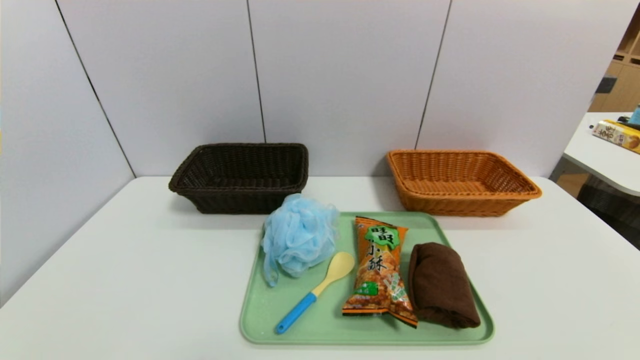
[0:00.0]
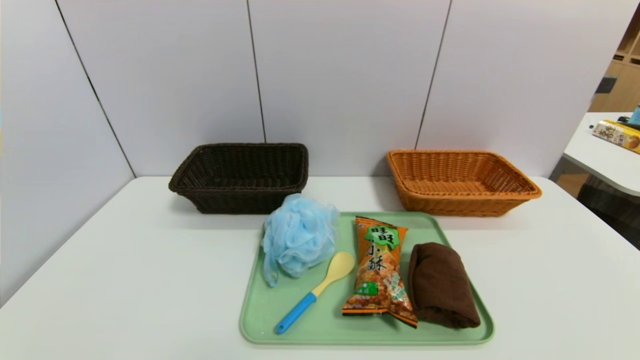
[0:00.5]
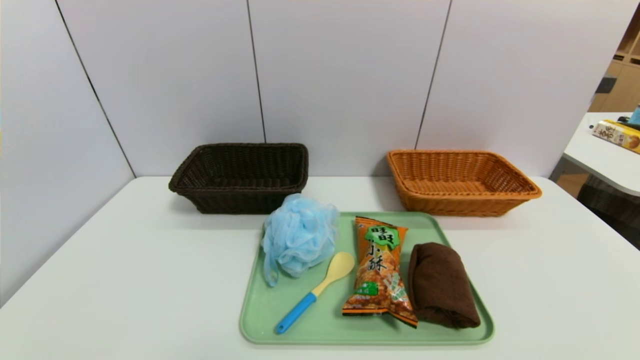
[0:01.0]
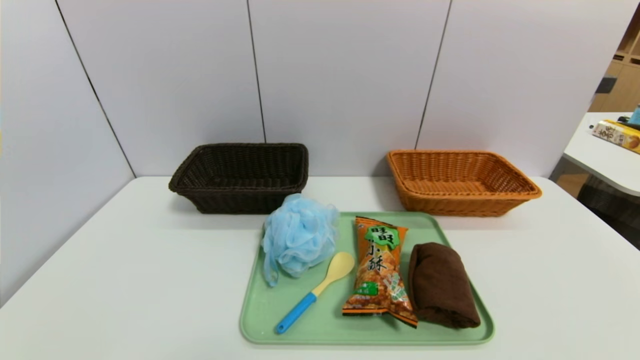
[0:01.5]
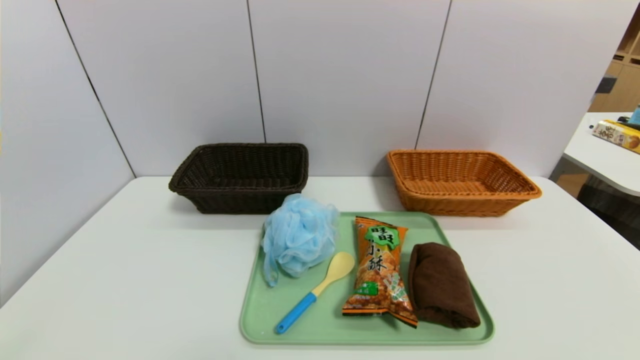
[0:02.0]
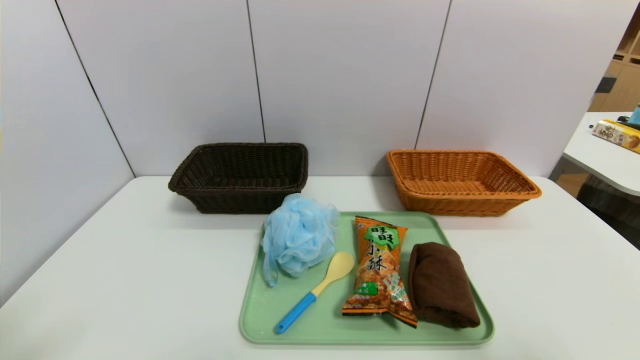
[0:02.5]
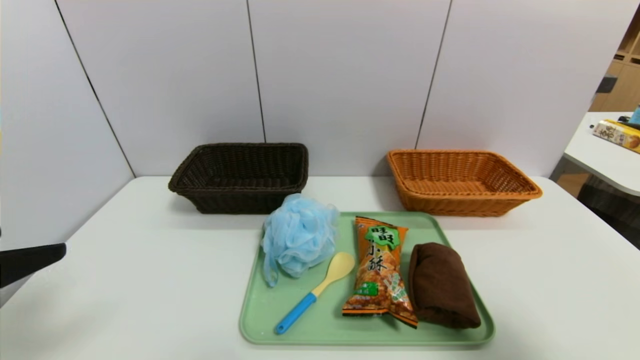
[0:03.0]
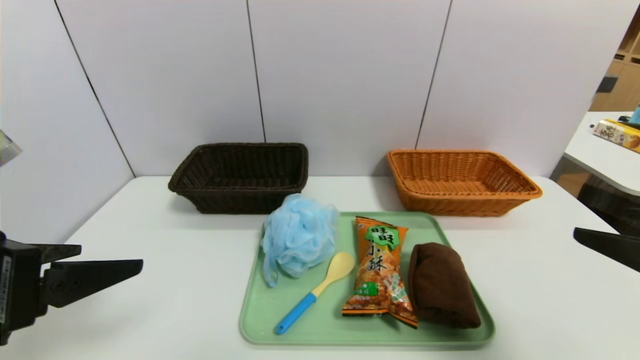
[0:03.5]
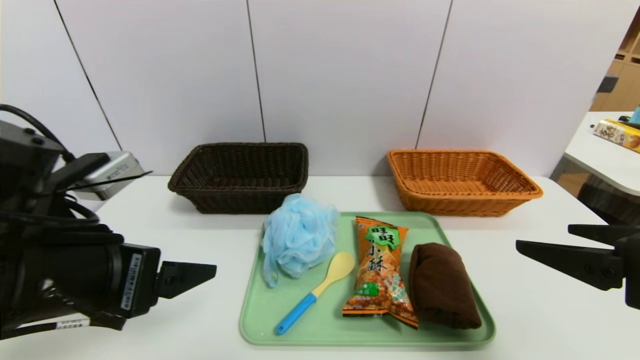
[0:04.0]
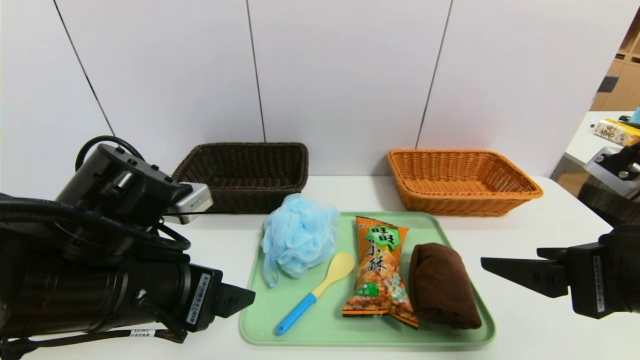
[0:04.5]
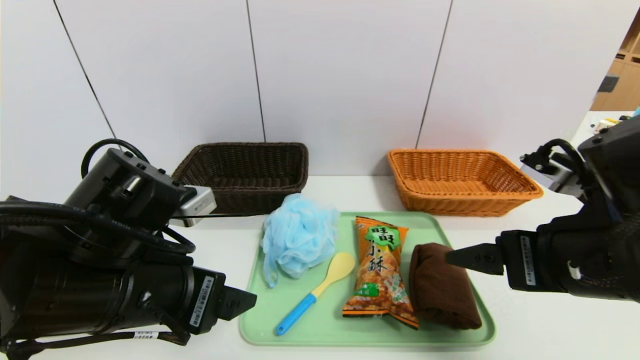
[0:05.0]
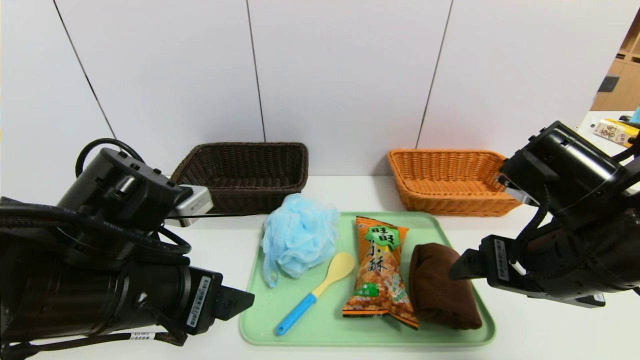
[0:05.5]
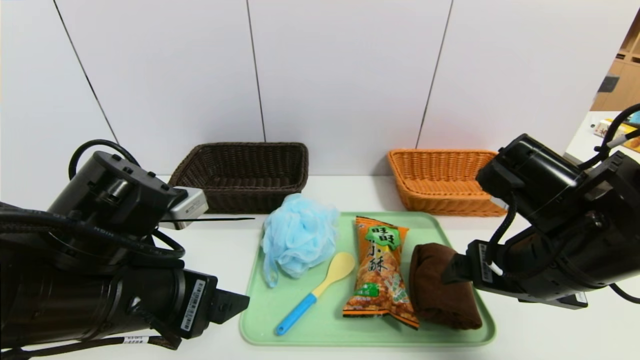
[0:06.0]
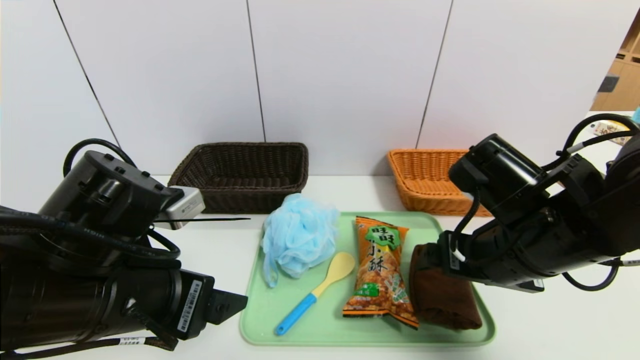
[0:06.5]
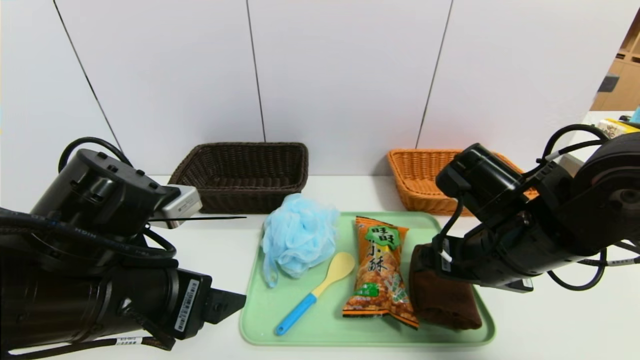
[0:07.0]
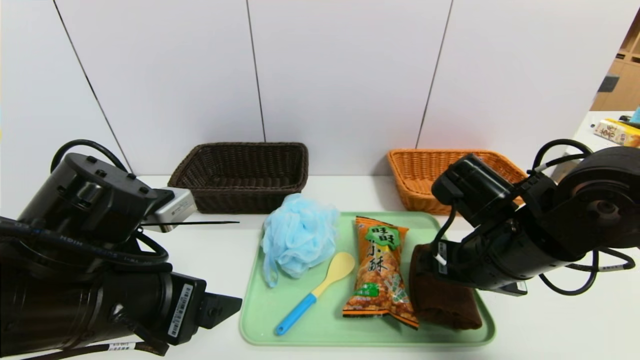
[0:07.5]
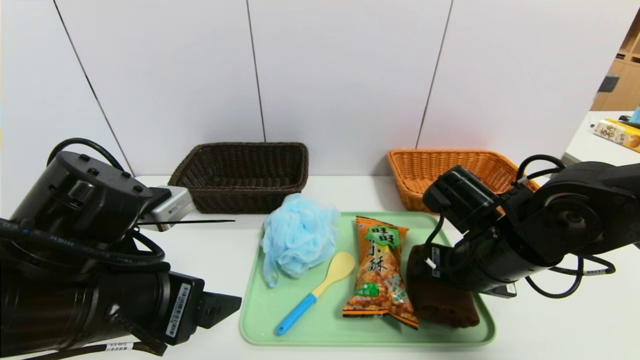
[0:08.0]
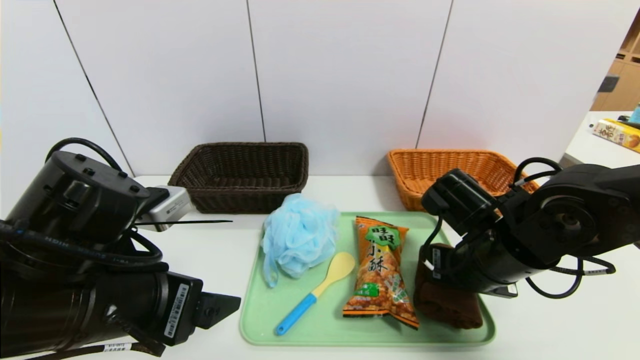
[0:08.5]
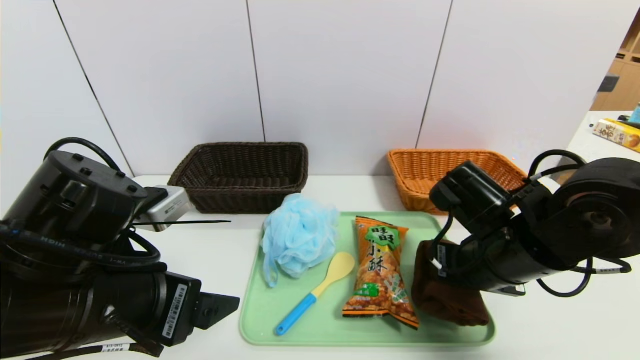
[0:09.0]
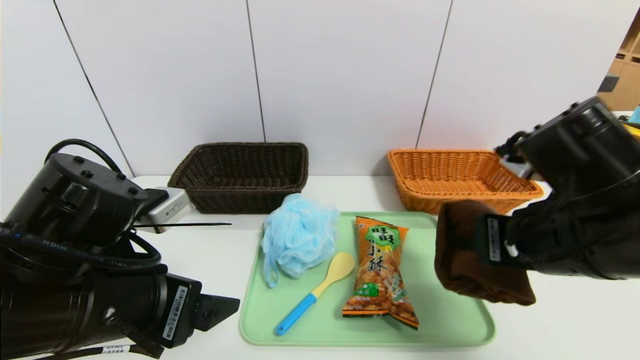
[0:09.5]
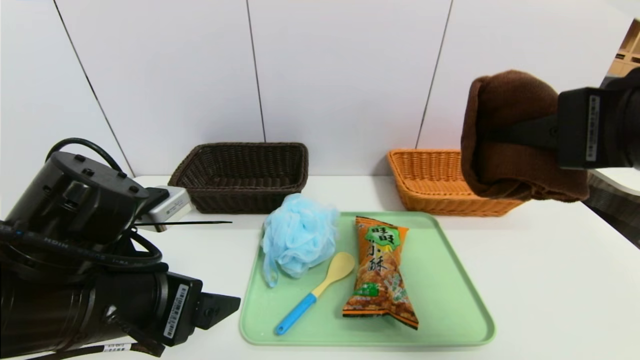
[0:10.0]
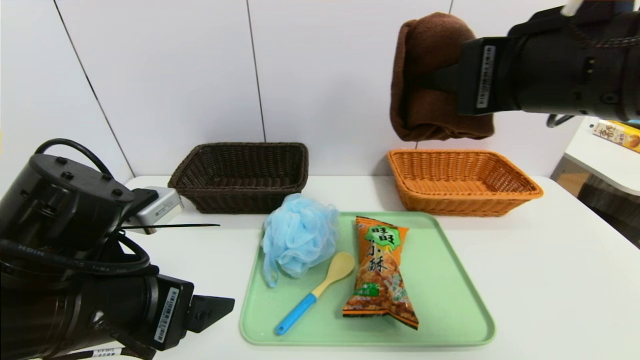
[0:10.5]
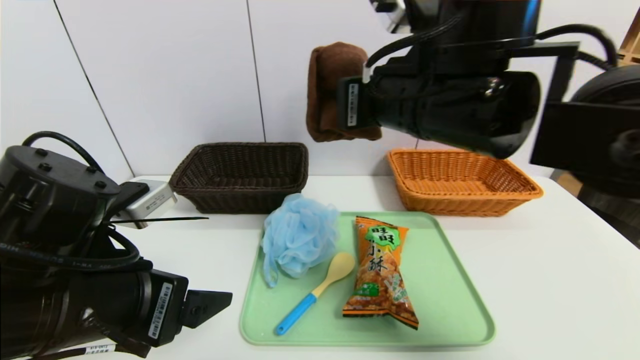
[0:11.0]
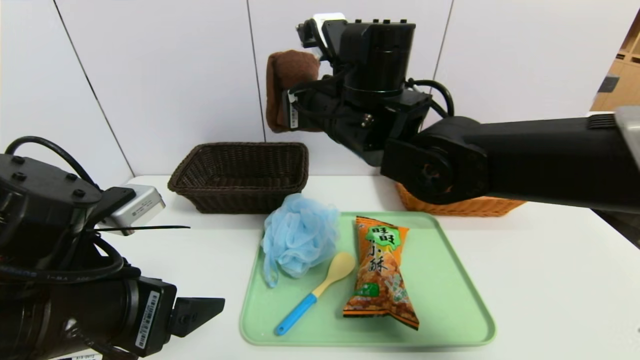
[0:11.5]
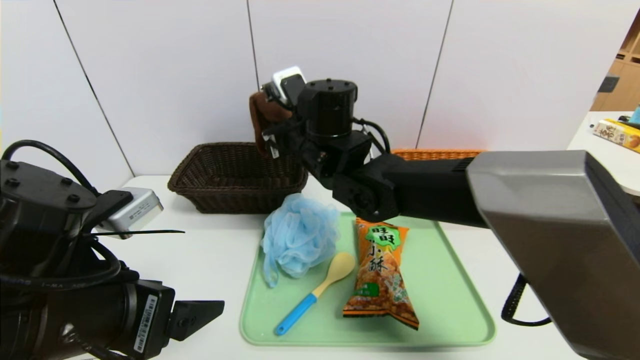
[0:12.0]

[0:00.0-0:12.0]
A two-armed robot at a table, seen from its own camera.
Task of the whole recording: place the food in the right basket with the right gripper, and place the non food items in the left basket with the left gripper.
0:02.0 to 0:04.0: The left gripper heads forward and to the right, covering roughly 20 cm. Meanwhile the right gripper goes some 15 cm forward.
0:04.0 to 0:06.0: The right gripper heads forward and to the left, covering about 10 cm.
0:06.0 to 0:08.0: The right gripper is displaced downward and forward by roughly 10 cm.
0:08.0 to 0:10.0: The right gripper goes some 20 cm upward and backward, and closes up.
0:10.0 to 0:12.0: The right gripper shifts roughly 35 cm to the left, forward and downward.

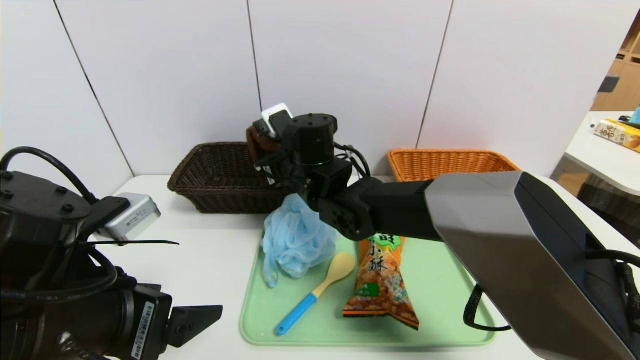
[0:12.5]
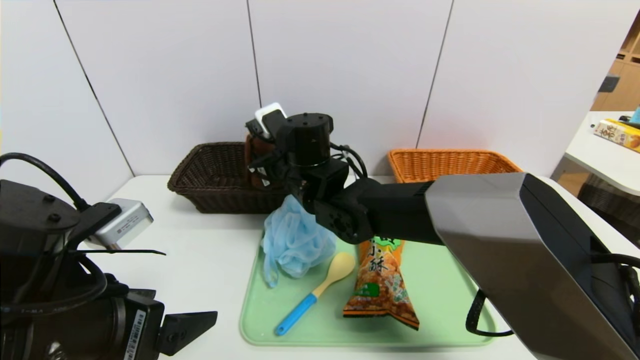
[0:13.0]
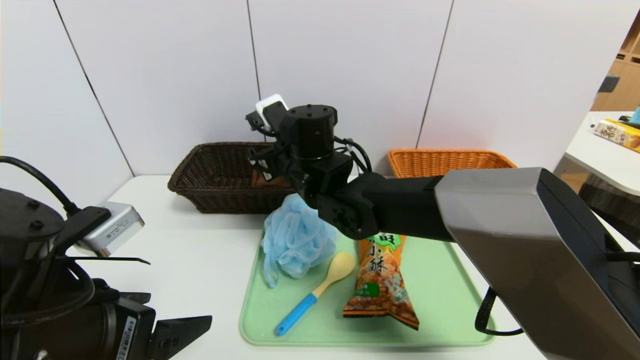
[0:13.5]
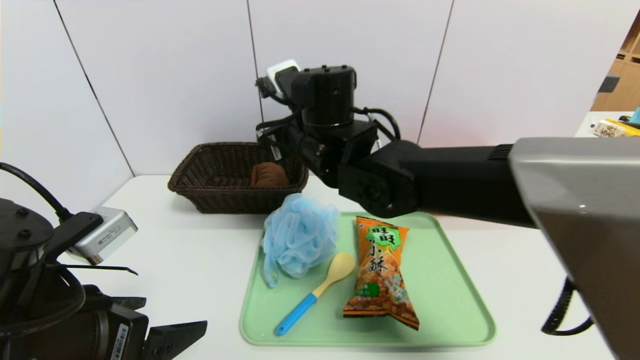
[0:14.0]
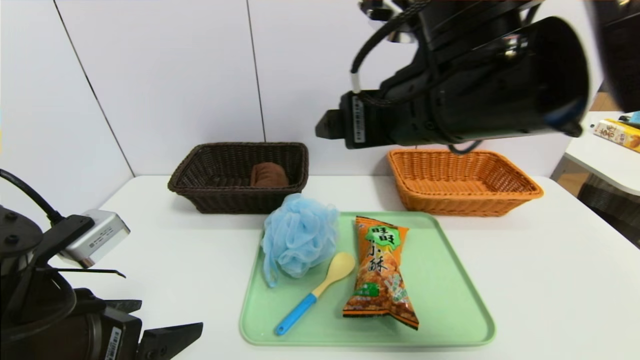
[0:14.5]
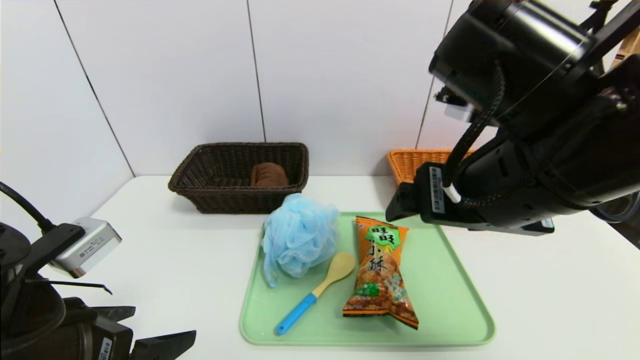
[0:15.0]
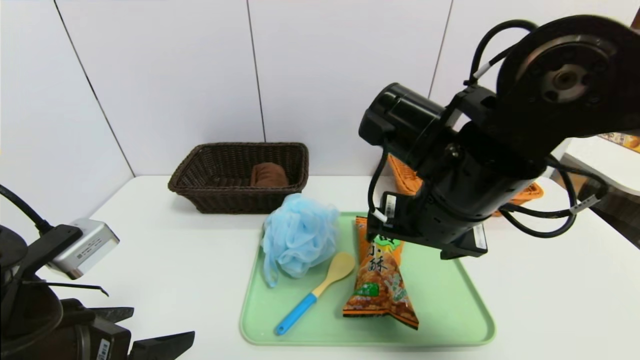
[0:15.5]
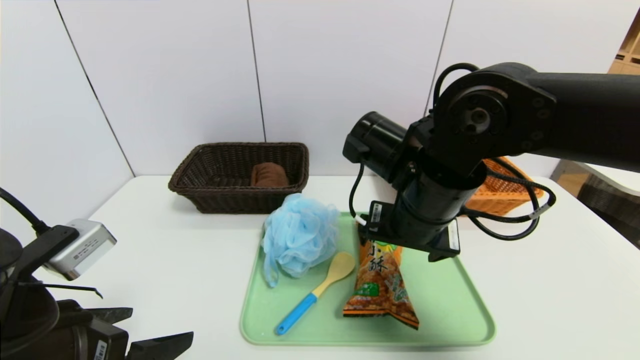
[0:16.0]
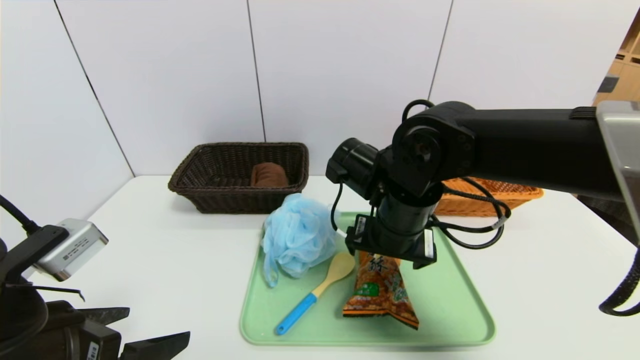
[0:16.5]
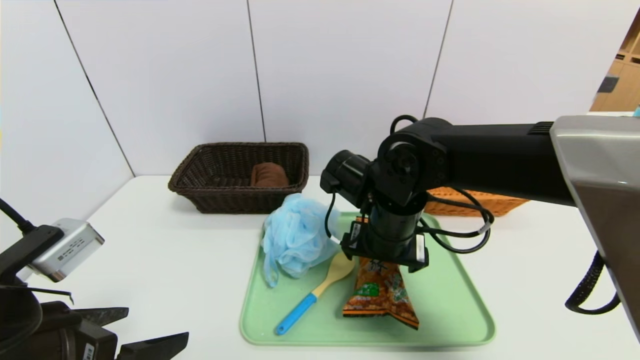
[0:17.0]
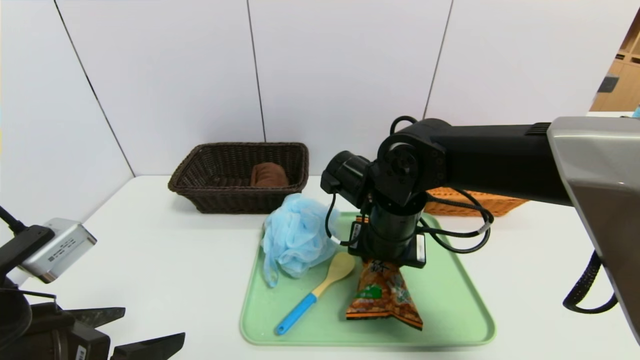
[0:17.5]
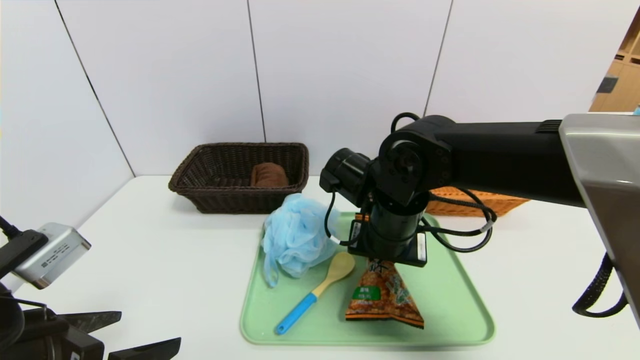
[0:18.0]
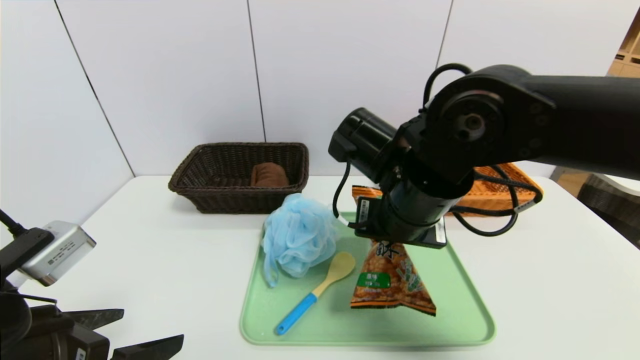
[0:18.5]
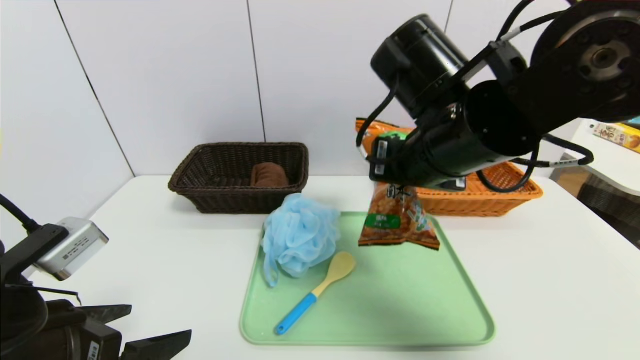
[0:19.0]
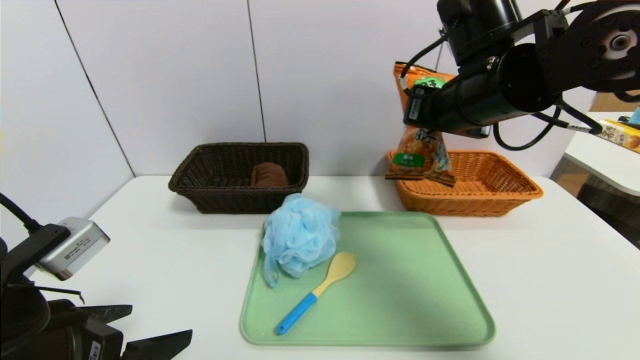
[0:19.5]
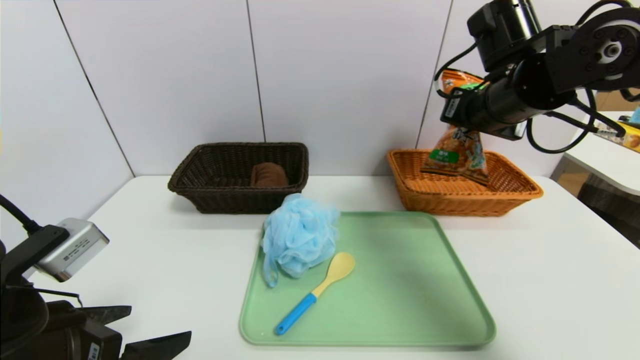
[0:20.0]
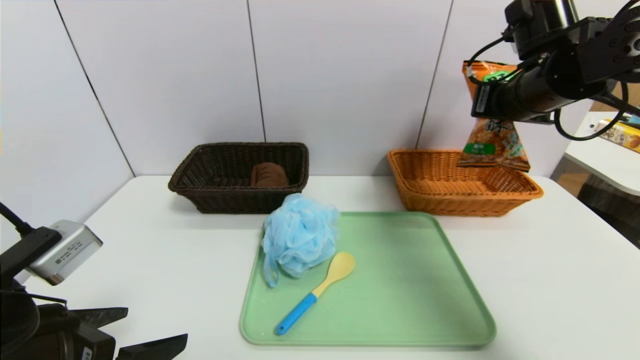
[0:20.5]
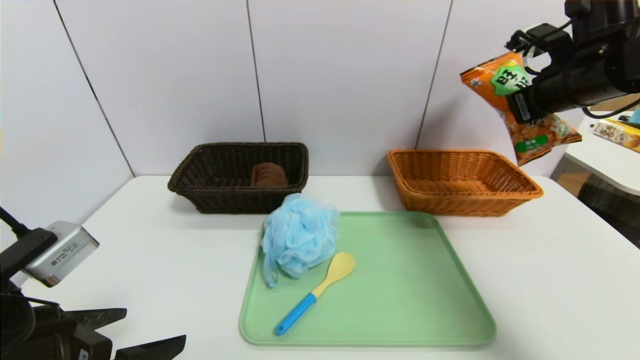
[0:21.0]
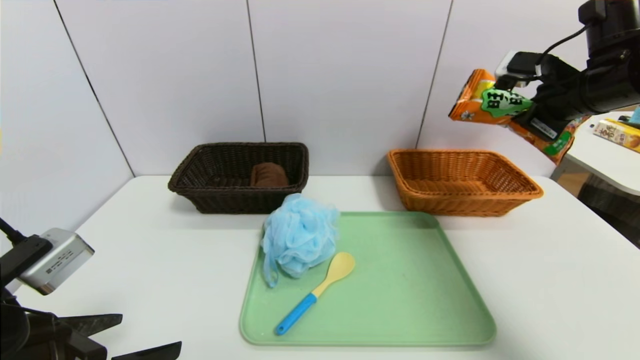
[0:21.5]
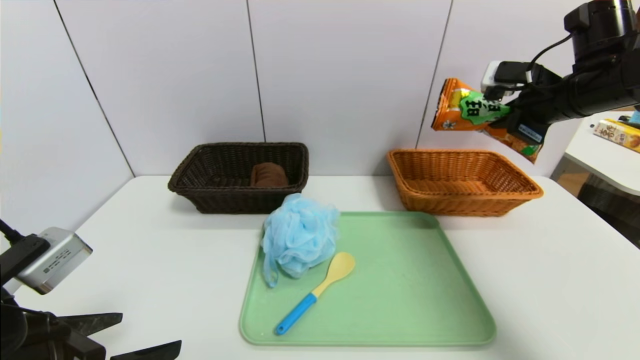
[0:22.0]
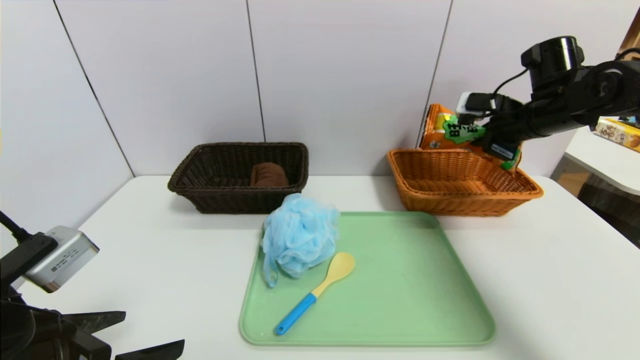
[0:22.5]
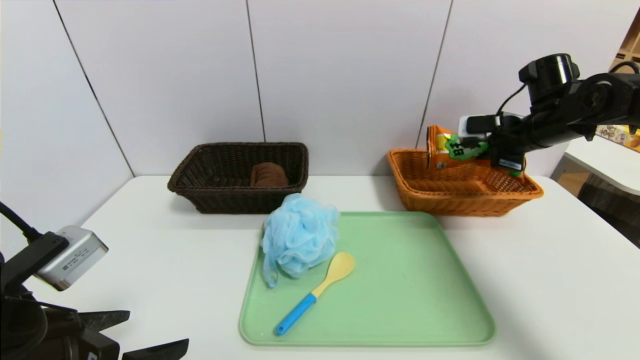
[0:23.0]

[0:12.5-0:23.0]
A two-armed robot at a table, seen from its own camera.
Task of the whole recording: place the food in the right basket with the right gripper, and place the non food items in the left basket with the left gripper.
0:12.5 to 0:14.5: The right gripper heads backward, upward and to the right, covering roughly 25 cm, and opens.
0:14.5 to 0:16.5: The right gripper goes approximately 15 cm downward and forward.
0:16.5 to 0:19.0: The right gripper moves upward, some 10 cm, and closes up.
0:19.0 to 0:21.0: The right gripper shifts some 25 cm to the right and forward.
0:21.0 to 0:23.0: The right gripper travels downward and forward by roughly 10 cm.
